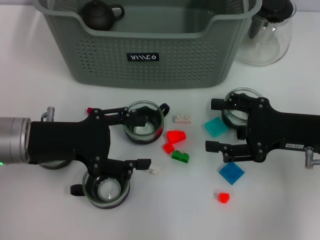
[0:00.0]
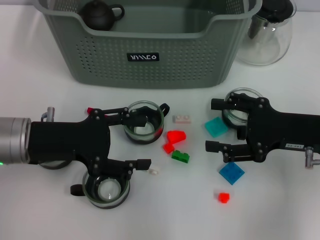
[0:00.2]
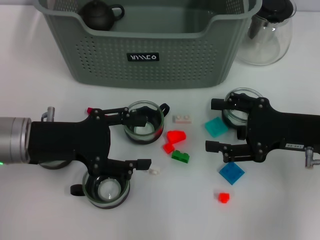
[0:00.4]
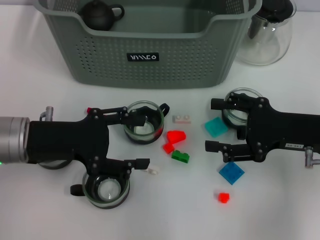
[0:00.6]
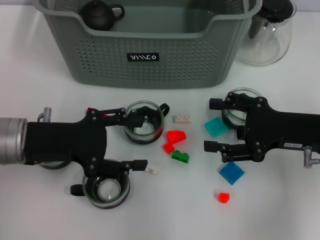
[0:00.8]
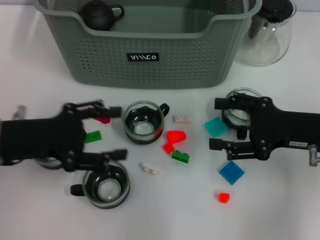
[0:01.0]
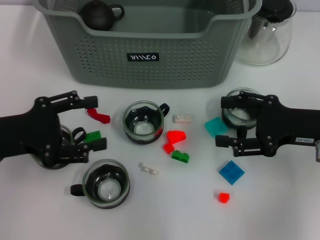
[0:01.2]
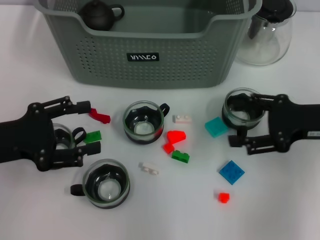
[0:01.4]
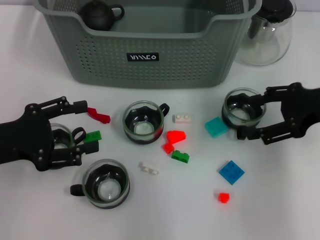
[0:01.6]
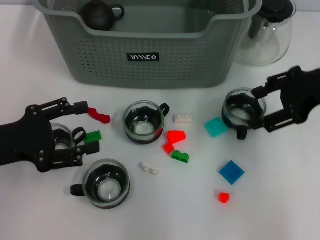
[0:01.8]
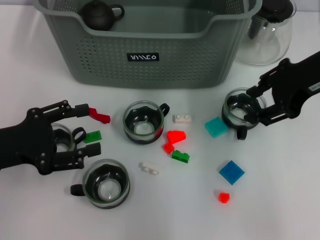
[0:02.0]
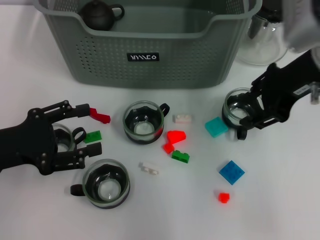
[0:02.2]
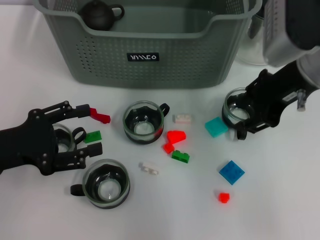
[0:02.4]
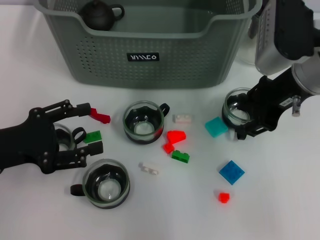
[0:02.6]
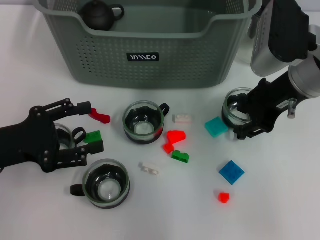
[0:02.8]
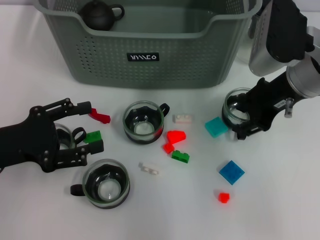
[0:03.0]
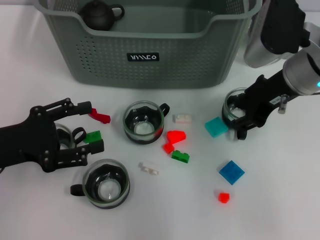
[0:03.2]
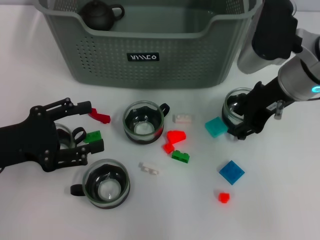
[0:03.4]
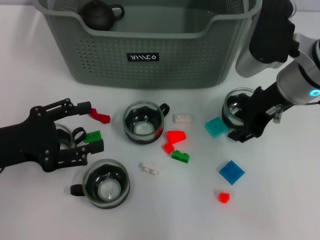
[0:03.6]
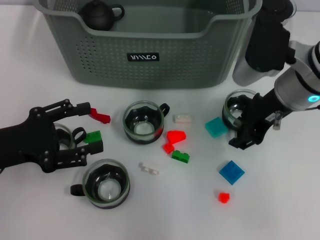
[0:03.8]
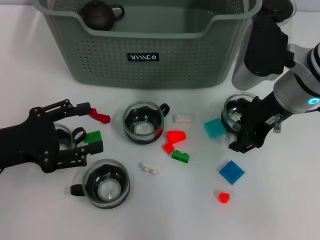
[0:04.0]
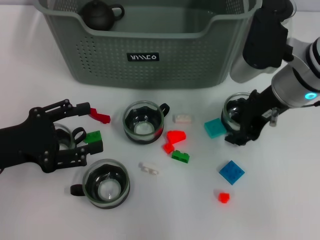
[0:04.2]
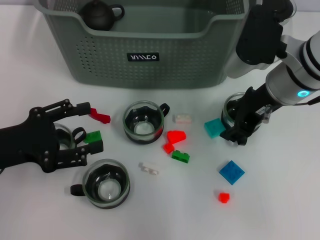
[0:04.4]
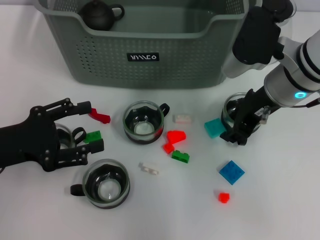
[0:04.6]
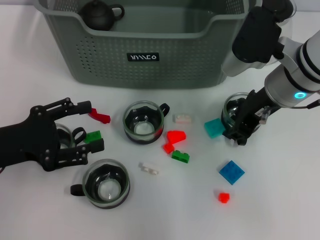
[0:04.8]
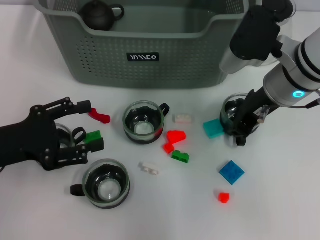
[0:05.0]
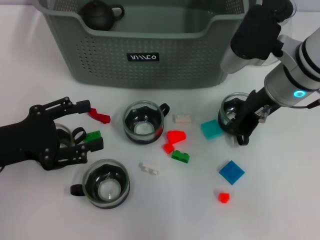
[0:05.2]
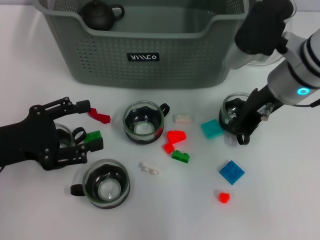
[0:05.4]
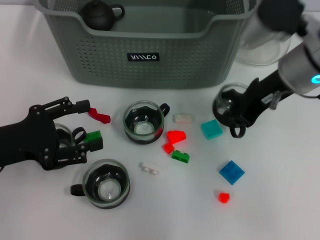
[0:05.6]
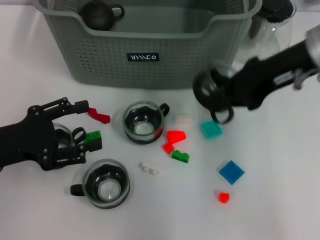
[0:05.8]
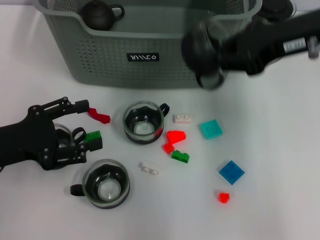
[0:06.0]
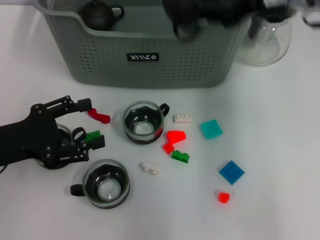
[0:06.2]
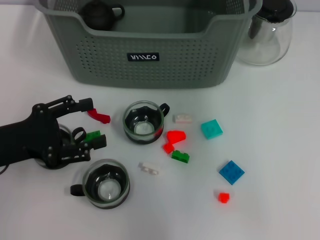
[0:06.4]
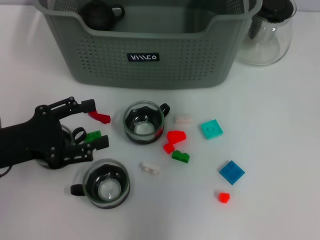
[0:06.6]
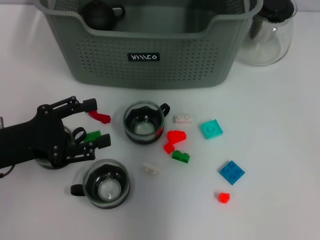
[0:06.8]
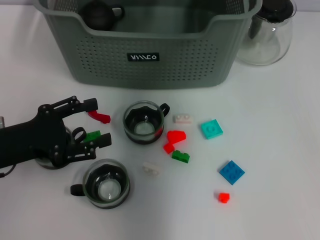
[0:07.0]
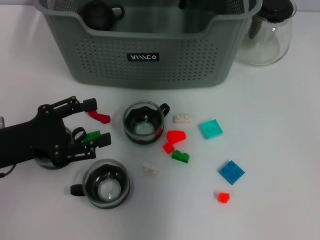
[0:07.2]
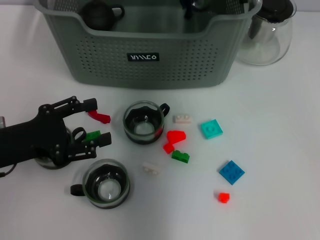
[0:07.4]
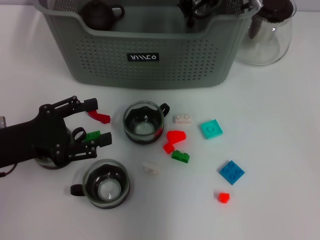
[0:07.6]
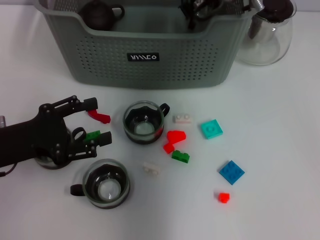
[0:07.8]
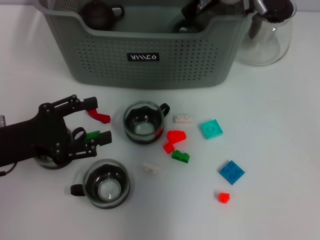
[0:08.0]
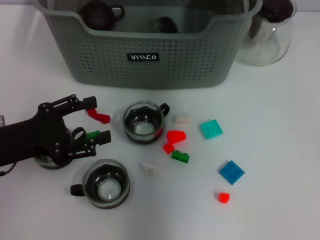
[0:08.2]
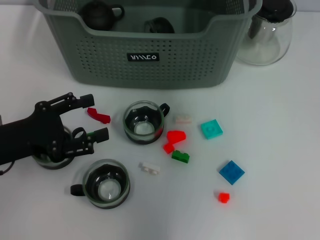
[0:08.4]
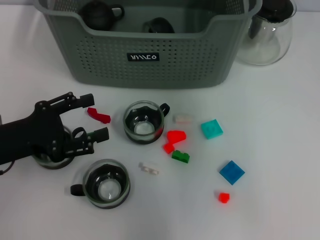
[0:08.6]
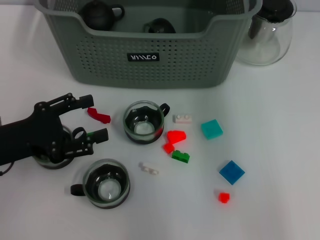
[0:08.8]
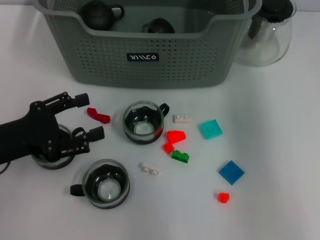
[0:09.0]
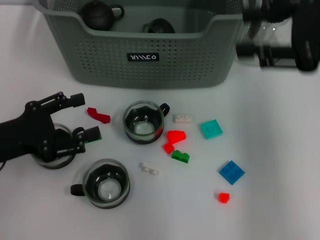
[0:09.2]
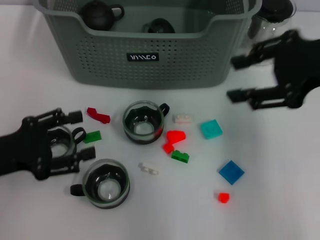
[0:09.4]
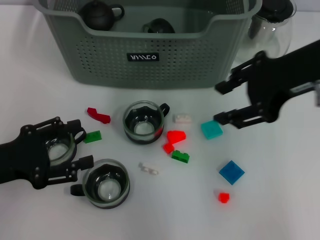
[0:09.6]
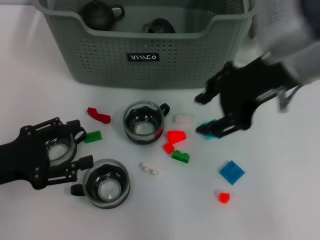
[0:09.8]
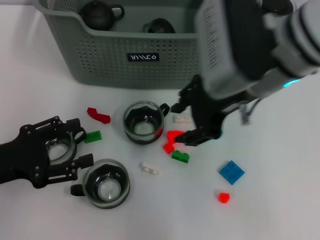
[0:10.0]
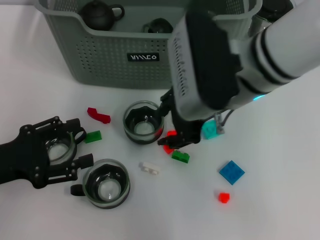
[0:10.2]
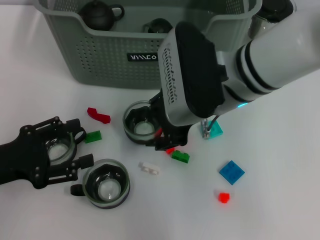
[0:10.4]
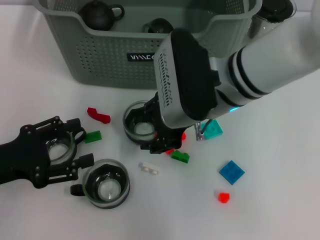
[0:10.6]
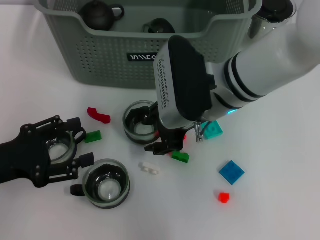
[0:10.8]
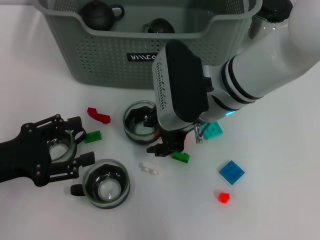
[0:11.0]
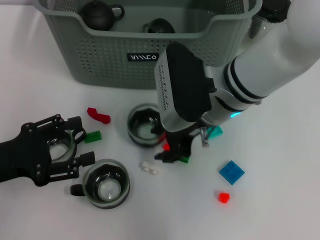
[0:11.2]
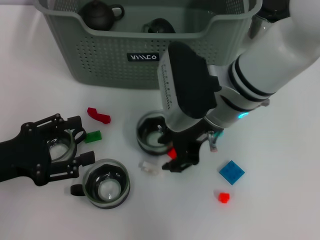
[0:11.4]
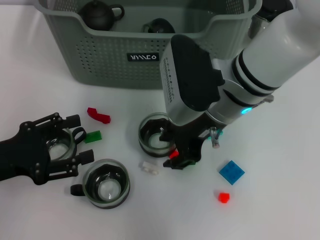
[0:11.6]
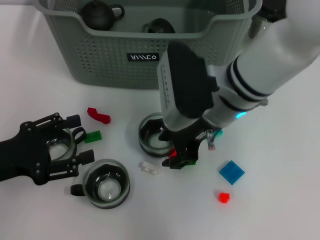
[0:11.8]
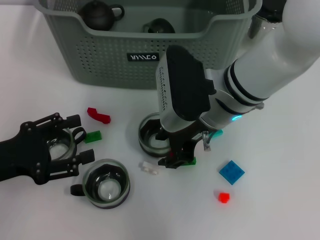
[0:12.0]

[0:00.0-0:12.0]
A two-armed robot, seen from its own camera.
Task of the whole recording: pick up the teacup on the table and place it into the storage bin, pick up the block on the table and place it into the storage bin.
Step, 0.0 to 4.8 s: Grasp the cup with right gripper.
Step, 5.2 to 8.4 s: Place the cup in the storage box with right gripper.
0.0 to 1.6 s: The left gripper heads to the left, covering approximately 5 cm, while the right gripper moves upward, approximately 5 cm.
1.6 to 3.0 s: The right gripper shifts about 10 cm to the left.
3.0 to 4.4 s: The grippers stay close to where they were, moving slightly.
4.4 to 6.0 s: The right gripper goes some 10 cm upward, and closes up.
6.0 to 7.6 s: The right gripper goes some 20 cm to the left and forward.
7.6 to 9.0 s: The right gripper shifts about 20 cm to the right, backward and upward, and opens its fingers.
9.0 to 10.4 s: The right gripper is displaced to the left and downward by roughly 20 cm.
10.4 to 12.0 s: The grippers stay close to where they were, moving slightly.

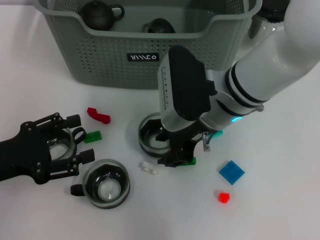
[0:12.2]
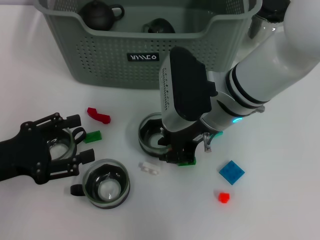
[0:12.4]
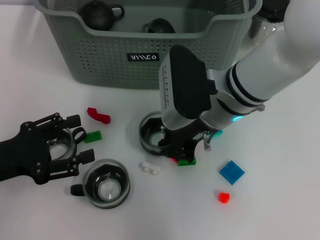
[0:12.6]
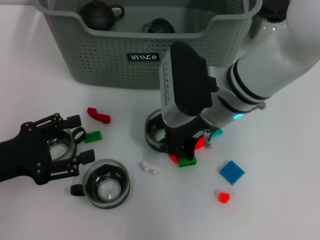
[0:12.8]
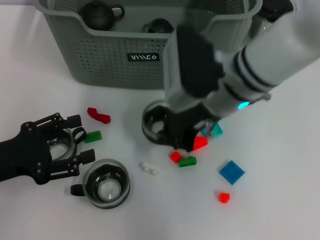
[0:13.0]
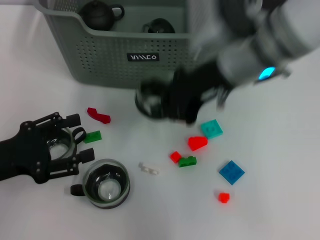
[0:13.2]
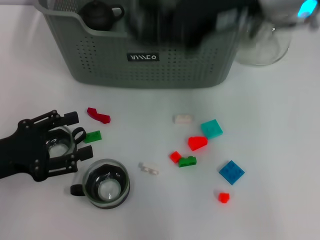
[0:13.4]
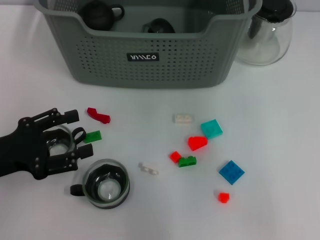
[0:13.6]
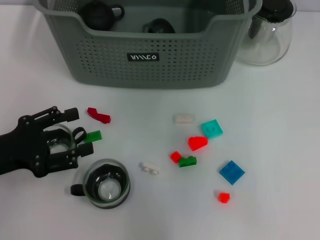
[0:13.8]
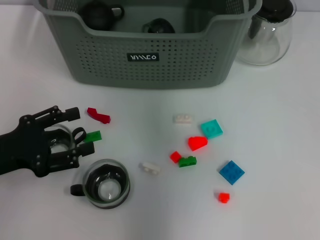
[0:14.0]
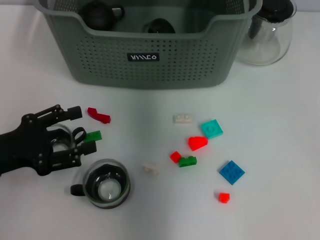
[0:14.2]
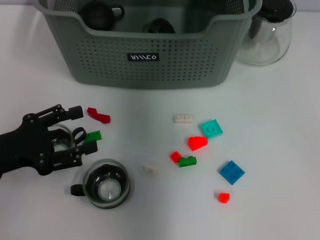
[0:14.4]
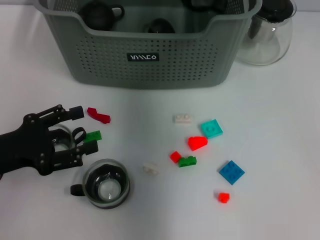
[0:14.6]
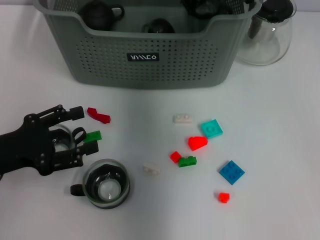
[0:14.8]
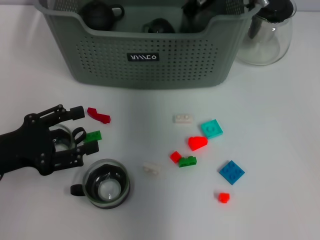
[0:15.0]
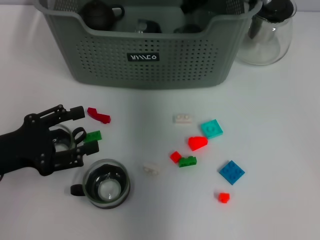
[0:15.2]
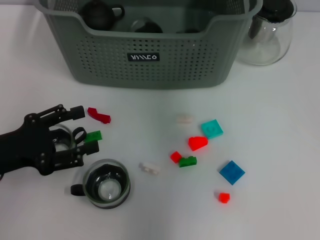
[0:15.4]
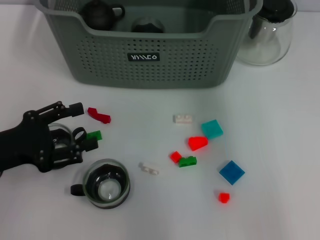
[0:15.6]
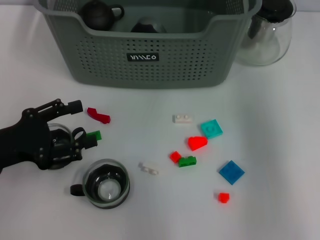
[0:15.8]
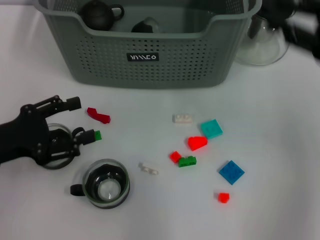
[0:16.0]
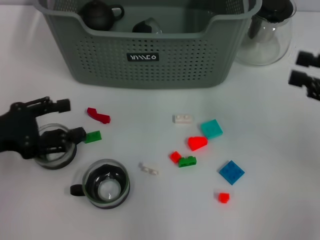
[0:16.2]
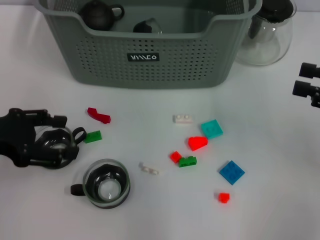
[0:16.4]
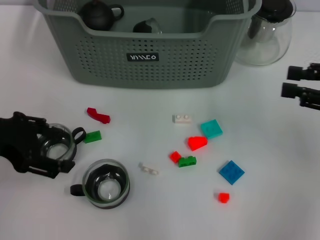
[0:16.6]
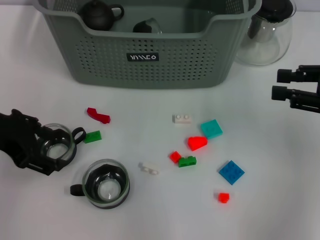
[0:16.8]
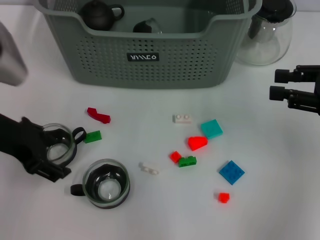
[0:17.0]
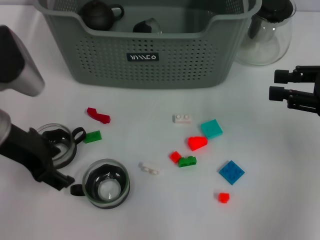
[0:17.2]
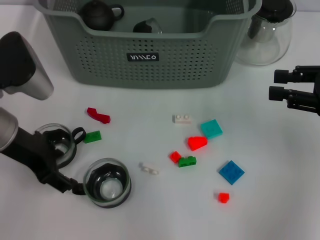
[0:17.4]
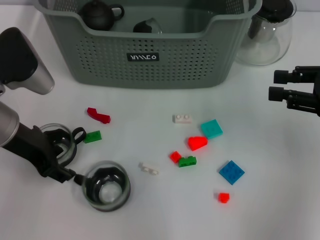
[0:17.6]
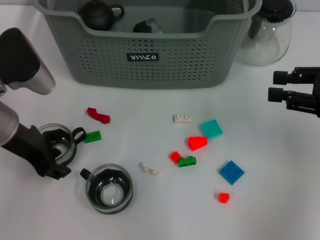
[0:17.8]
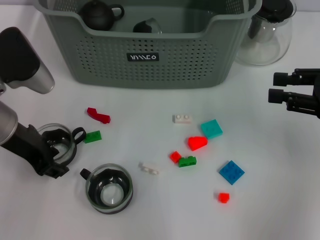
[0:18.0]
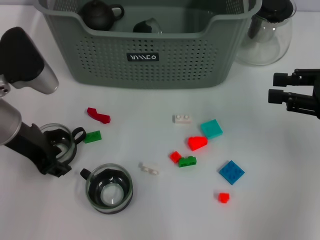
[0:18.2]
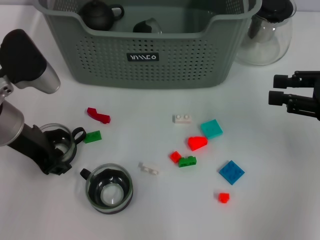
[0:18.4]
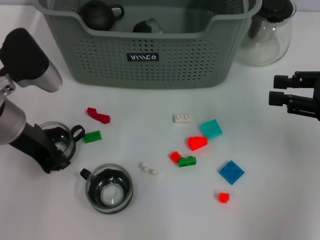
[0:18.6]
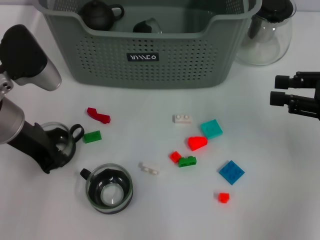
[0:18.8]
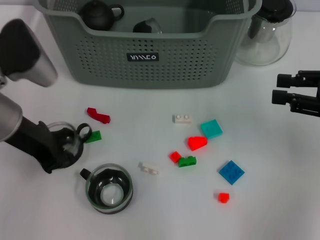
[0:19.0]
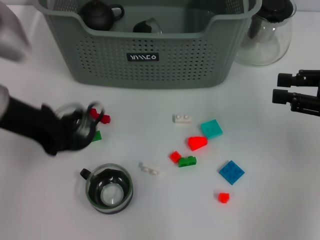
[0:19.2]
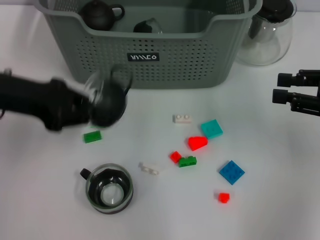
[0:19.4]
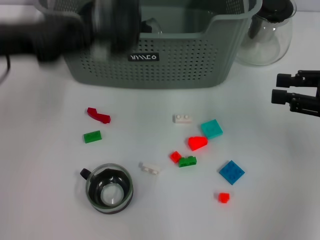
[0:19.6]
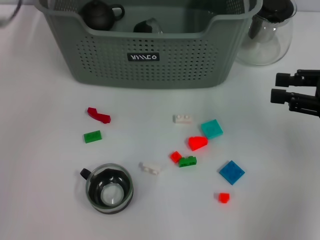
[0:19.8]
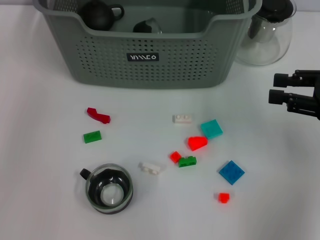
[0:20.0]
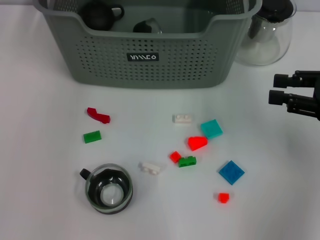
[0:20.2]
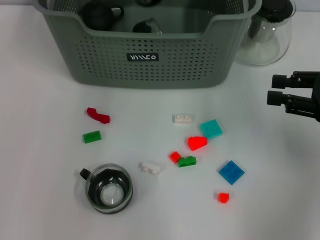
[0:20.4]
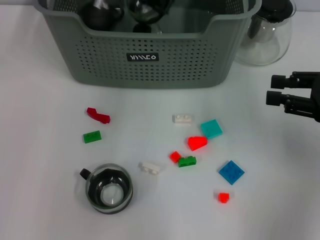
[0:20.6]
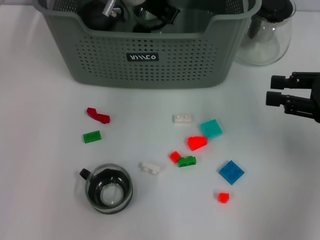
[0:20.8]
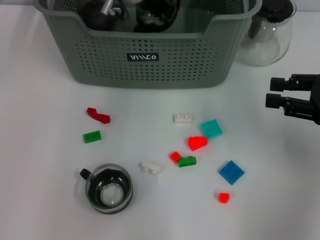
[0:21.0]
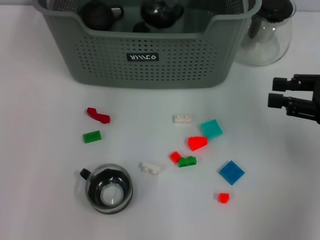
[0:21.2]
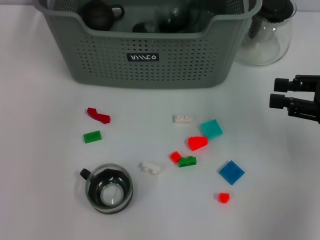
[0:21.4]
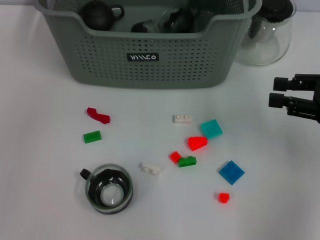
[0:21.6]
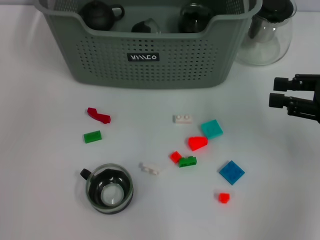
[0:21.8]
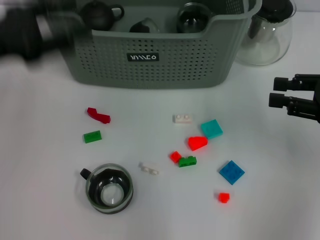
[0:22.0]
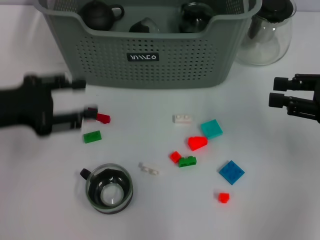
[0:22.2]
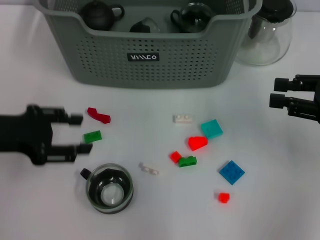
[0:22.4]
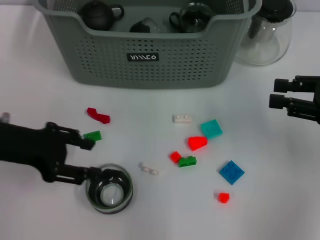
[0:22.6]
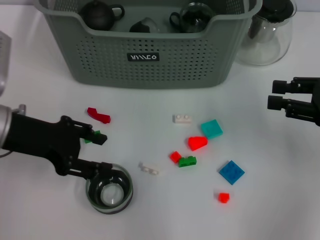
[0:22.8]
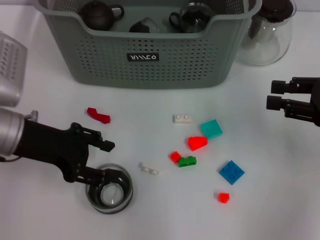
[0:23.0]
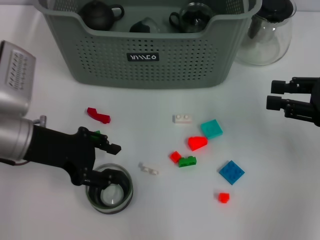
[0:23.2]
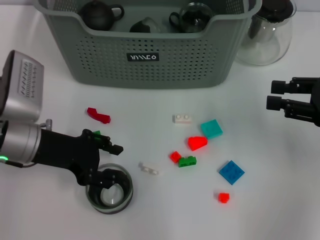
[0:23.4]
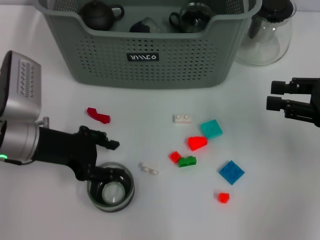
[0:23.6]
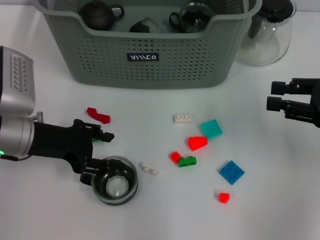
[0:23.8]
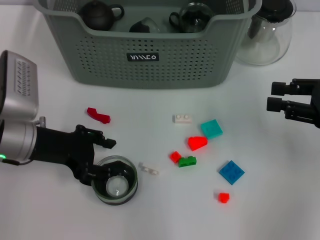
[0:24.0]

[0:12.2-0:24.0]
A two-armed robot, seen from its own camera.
Task of the whole recording: pick up the teacup on the table and place it into the storage bin, pick up the block on the table and place it into the storage bin.
Step, 13.2 to 15.4 s: Place the cup in the storage box with right gripper.
Step, 15.6 to 18.6 s: Grasp the cup with left gripper.
Step, 18.8 to 21.6 s: Place the cup in the storage box with left gripper.
12.2 to 13.6 s: The right gripper is displaced upward by about 20 cm, and closes.
13.6 to 15.2 s: The right gripper heads downward and forward, covering some 15 cm.
15.2 to 16.6 s: The left gripper goes roughly 10 cm upward. Meanwhile the right gripper is displaced to the right and backward by approximately 30 cm, and opens its fingers.
16.6 to 18.2 s: The left gripper goes some 5 cm to the right, and closes its fingers.
18.2 to 19.6 s: The left gripper shifts approximately 5 cm upward, and closes up.
19.6 to 21.0 s: The left gripper is displaced to the right and forward by some 25 cm.
21.0 to 22.6 s: The left gripper is displaced backward and to the left by some 30 cm, and opens.
22.6 to 24.0 s: The left gripper goes approximately 5 cm downward.
